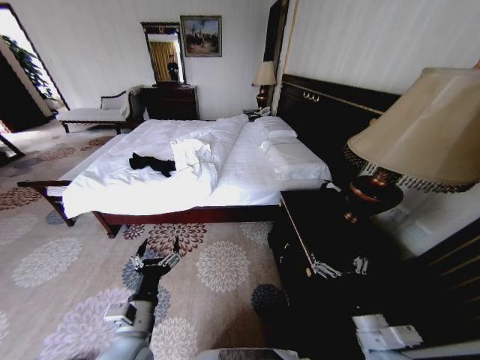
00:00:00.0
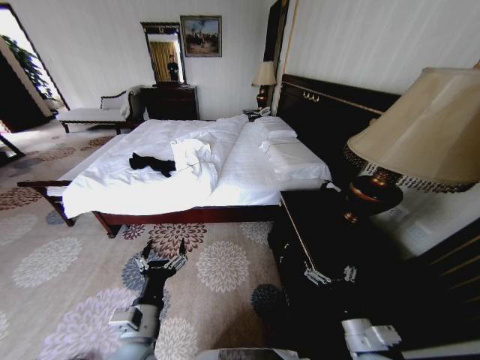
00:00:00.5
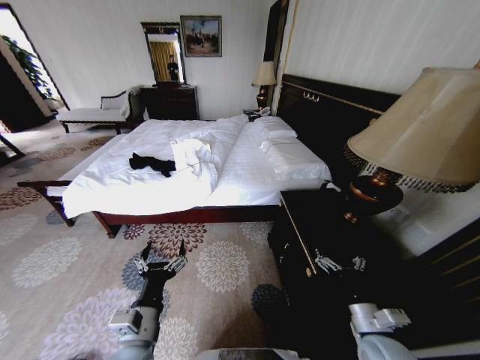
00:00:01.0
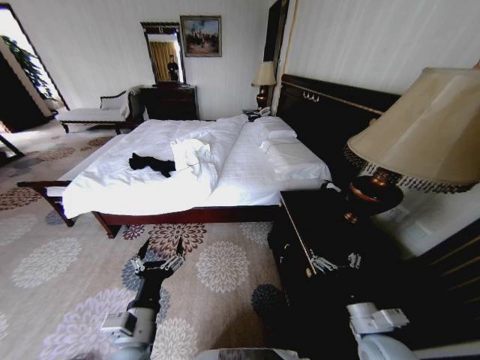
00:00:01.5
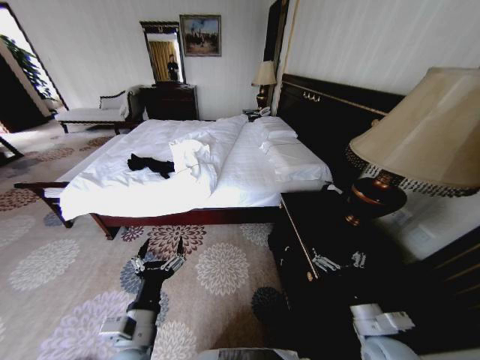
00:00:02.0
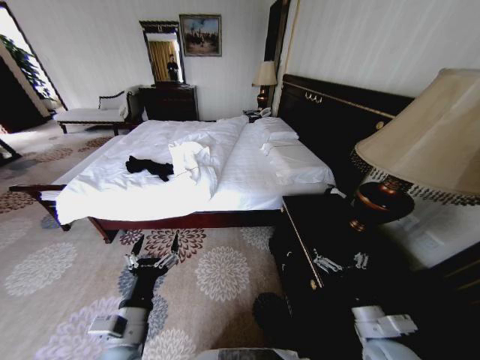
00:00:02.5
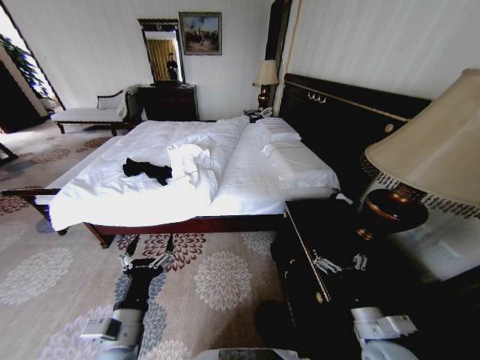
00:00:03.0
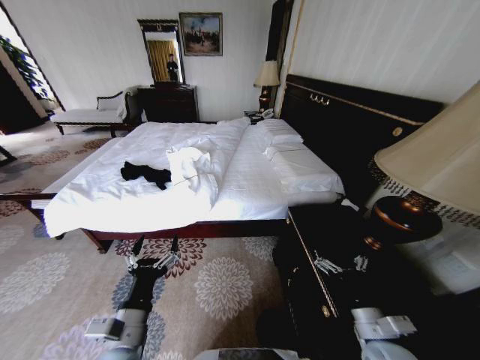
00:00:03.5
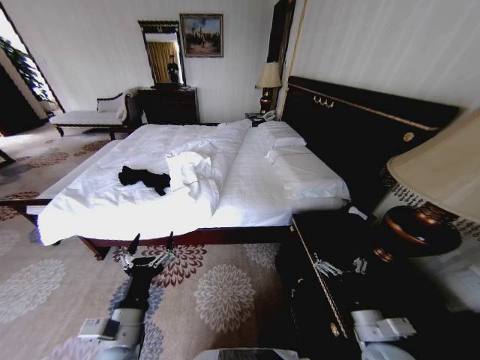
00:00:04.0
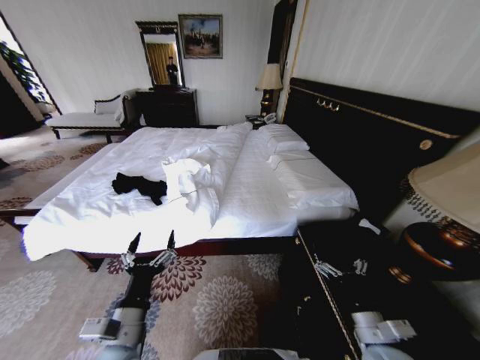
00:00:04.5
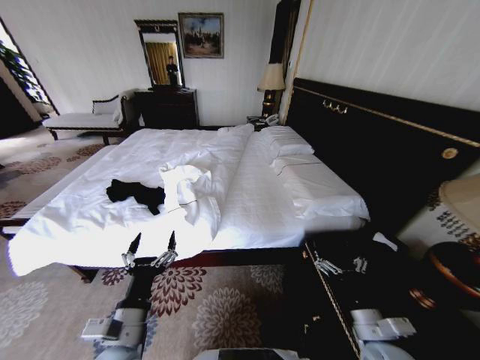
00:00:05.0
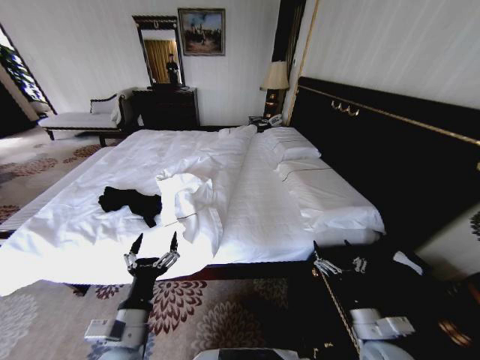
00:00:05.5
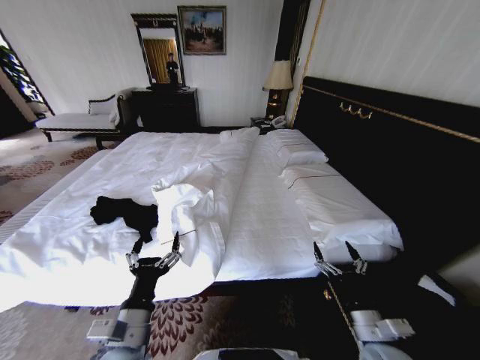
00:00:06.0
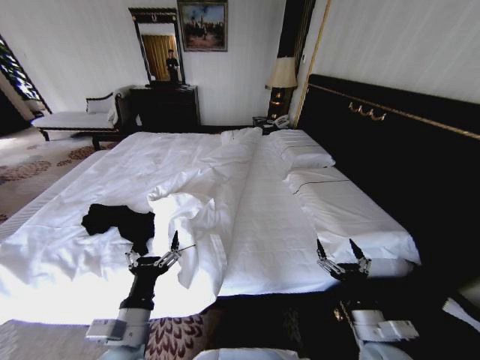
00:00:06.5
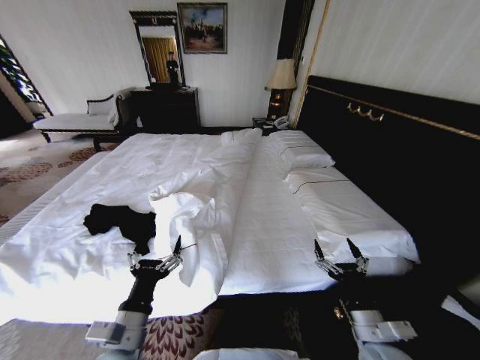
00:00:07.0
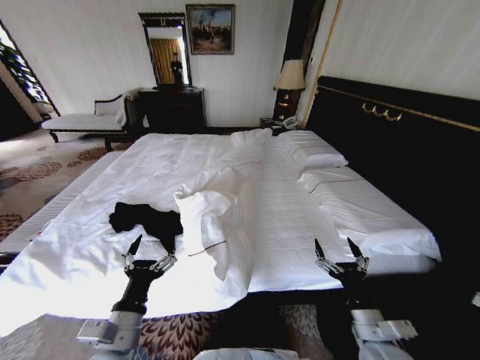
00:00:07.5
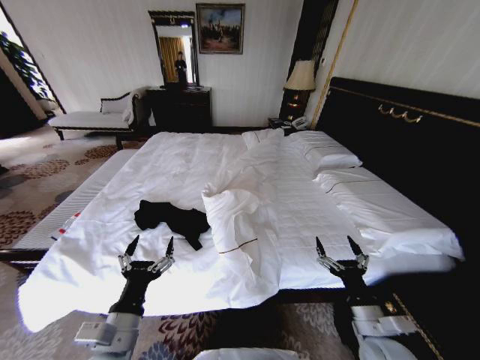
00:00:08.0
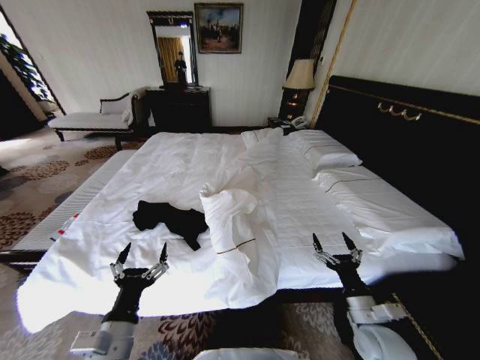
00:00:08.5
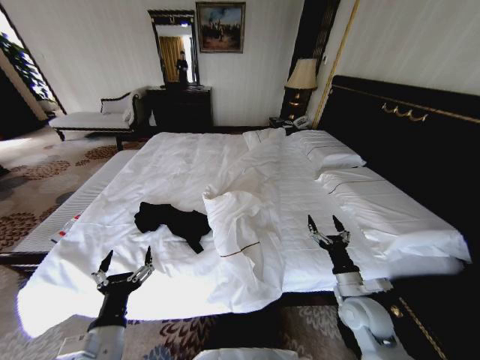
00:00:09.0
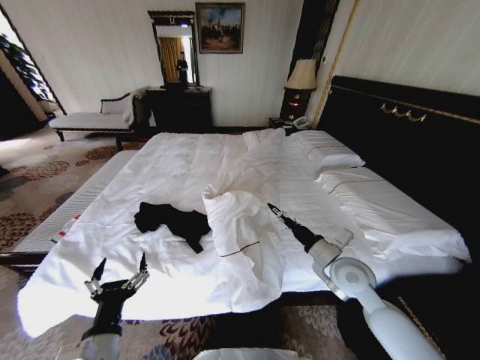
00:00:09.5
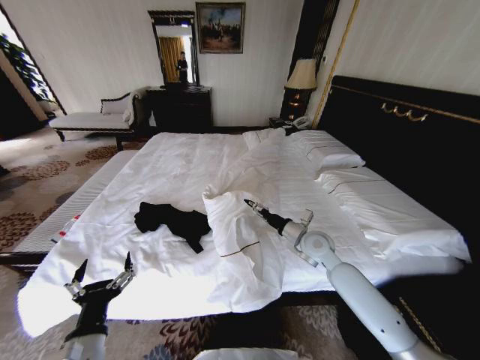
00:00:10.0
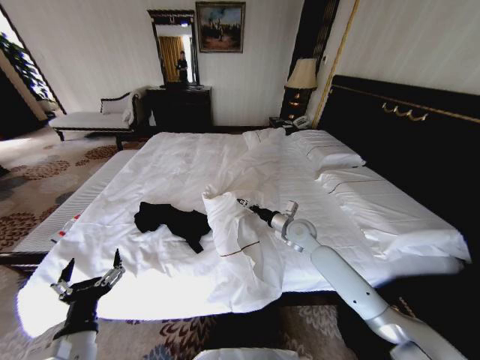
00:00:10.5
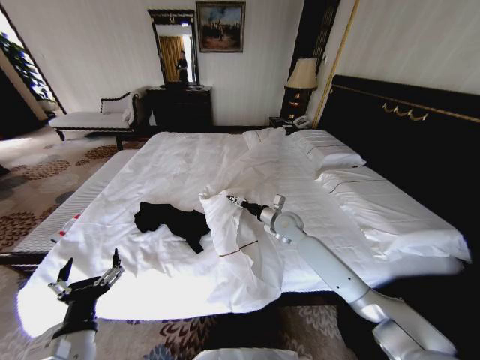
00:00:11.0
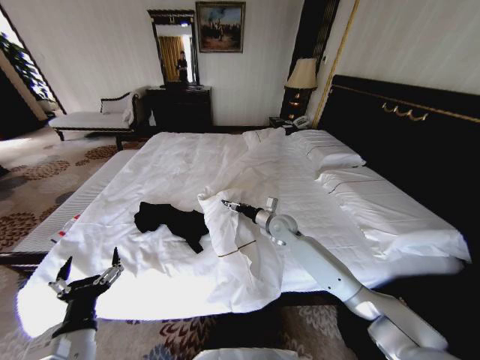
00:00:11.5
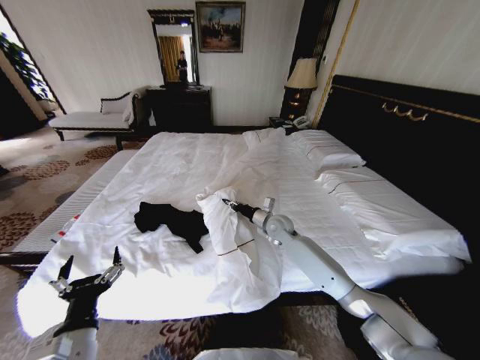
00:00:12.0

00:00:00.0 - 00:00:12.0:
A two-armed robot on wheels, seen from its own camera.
Task of the whole recording: Fold the clothes on the bed.
00:00:08.0 - 00:00:10.0: The right gripper travels forward by about 25 cm.
00:00:10.0 - 00:00:12.0: The right gripper goes about 10 cm forward and to the left, and closes.

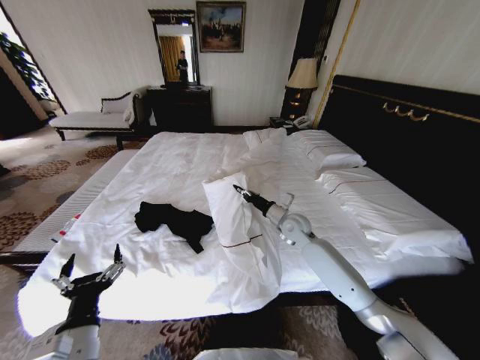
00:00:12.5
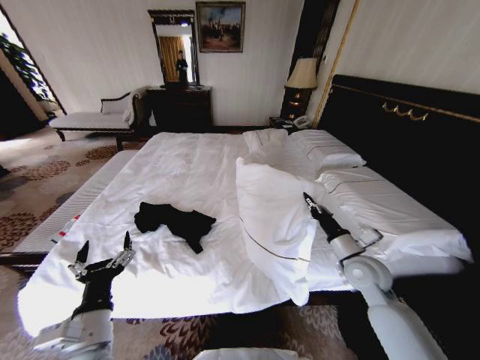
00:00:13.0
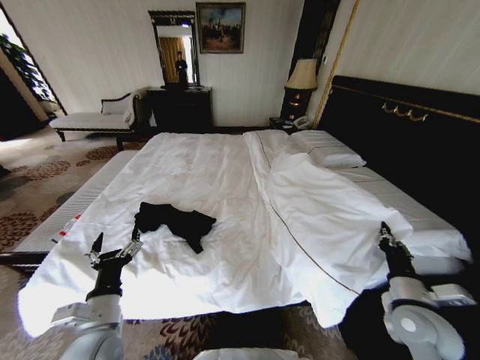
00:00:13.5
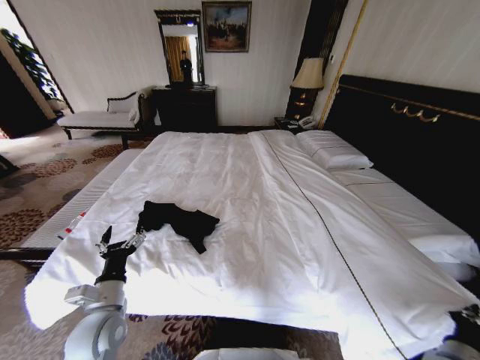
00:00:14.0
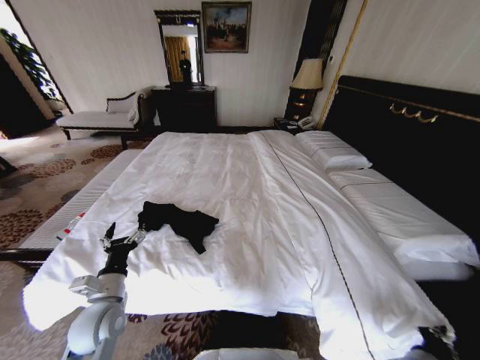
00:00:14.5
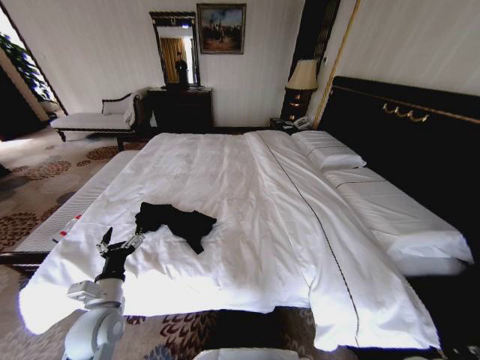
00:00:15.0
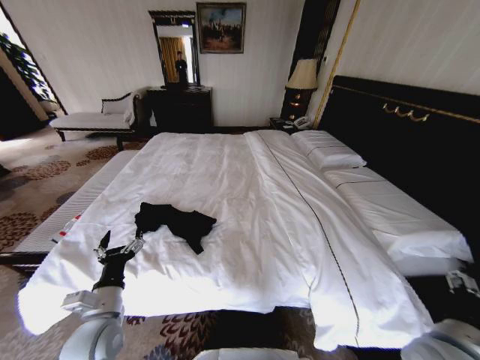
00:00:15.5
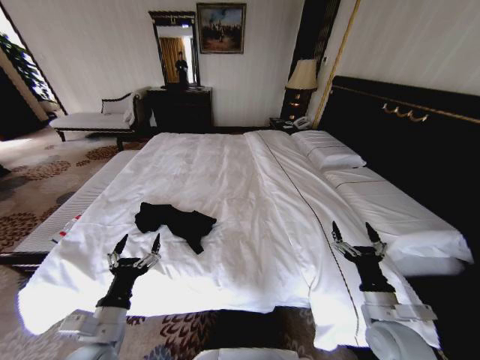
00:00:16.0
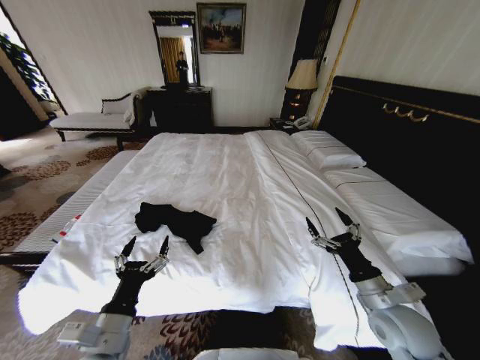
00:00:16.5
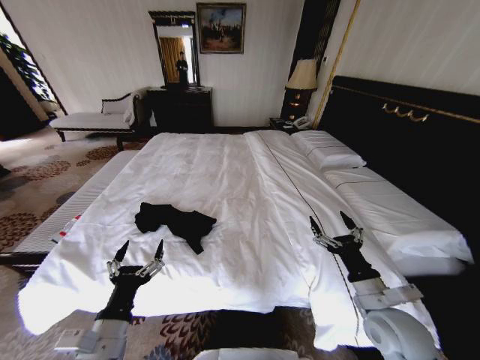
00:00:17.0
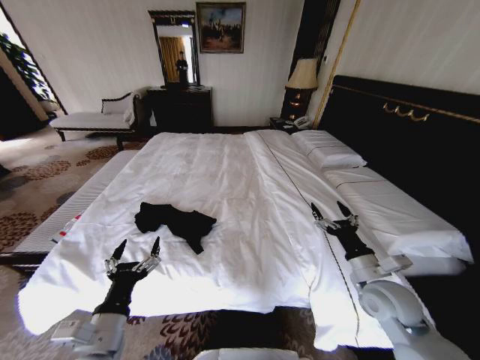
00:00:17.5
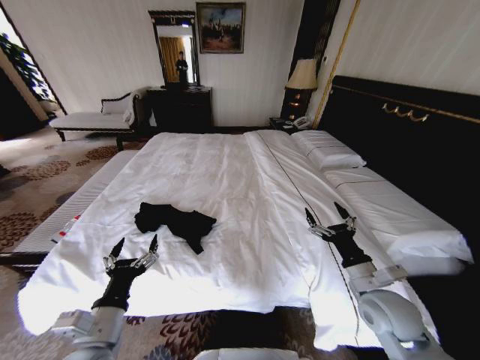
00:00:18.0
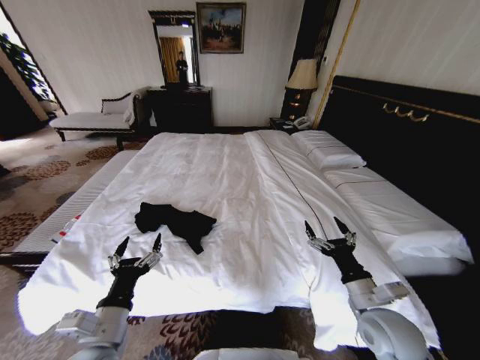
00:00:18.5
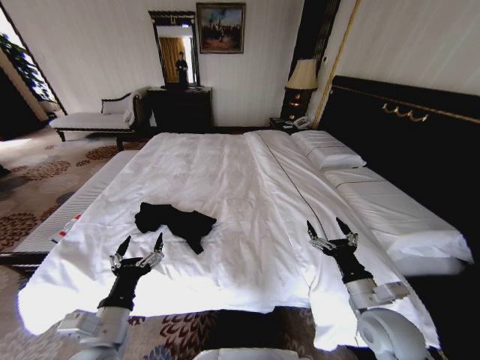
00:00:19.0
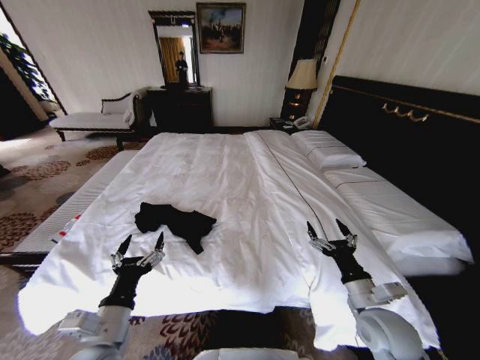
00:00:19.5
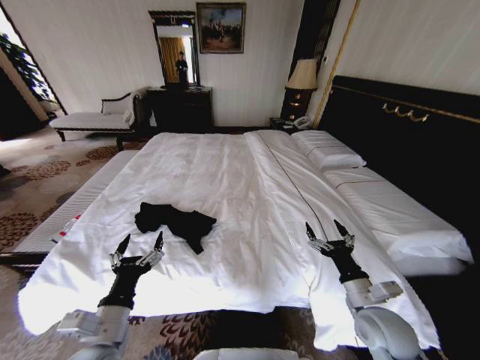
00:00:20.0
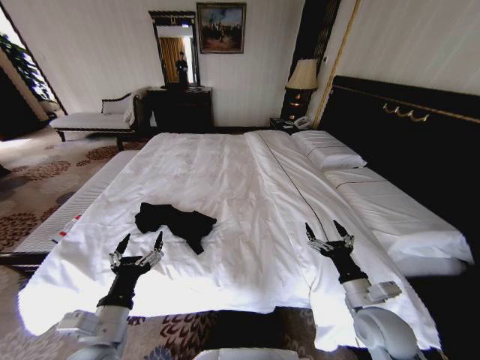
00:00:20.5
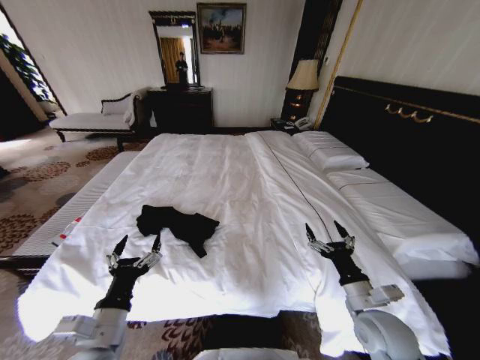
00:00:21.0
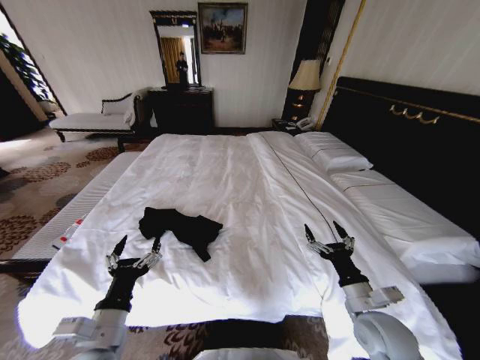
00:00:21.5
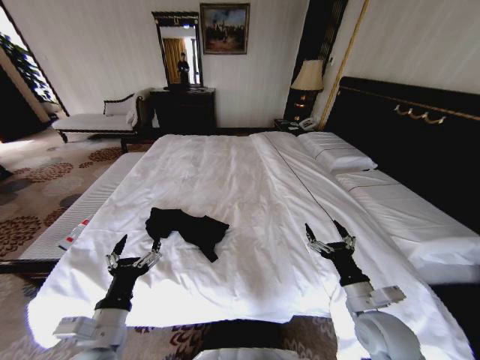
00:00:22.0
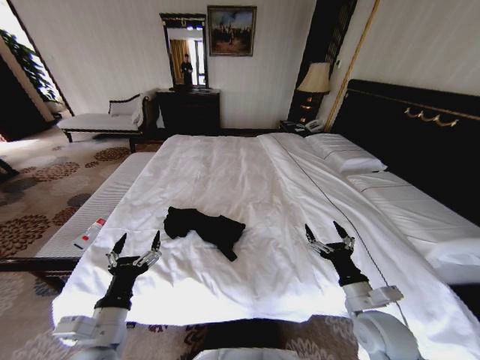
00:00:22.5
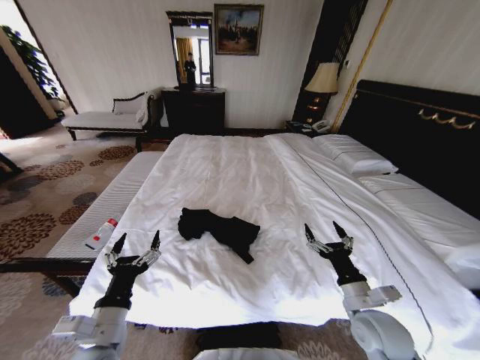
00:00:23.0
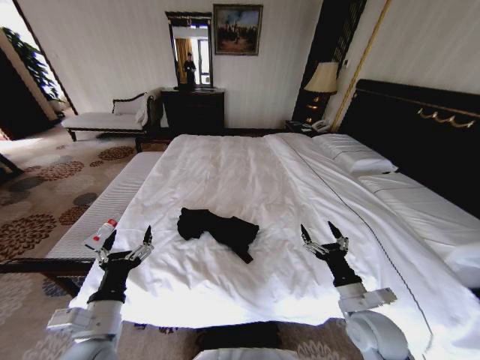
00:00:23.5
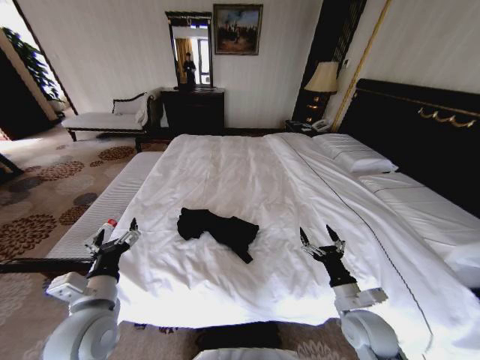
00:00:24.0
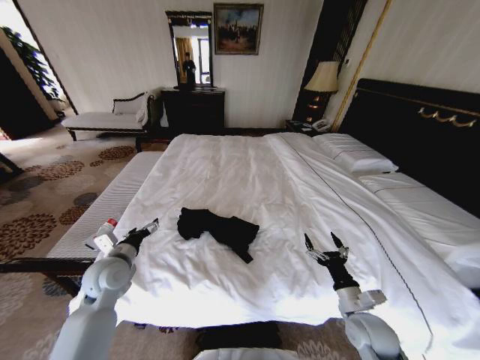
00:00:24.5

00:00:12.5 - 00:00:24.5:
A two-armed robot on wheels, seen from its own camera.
Task of the whole recording: Fold the clothes on the bed.
00:00:12.5 - 00:00:14.5: The left gripper goes some 10 cm forward; the right gripper is displaced backward, to the right and downward by about 40 cm.
00:00:14.5 - 00:00:16.5: The right gripper moves upward, forward and to the left, about 20 cm, and opens. Meanwhile the left gripper heads backward and to the right, covering some 10 cm.
00:00:18.5 - 00:00:20.5: The grippers make only small movements.
00:00:22.5 - 00:00:24.5: The right gripper travels downward by approximately 5 cm; the left gripper moves forward, roughly 20 cm.

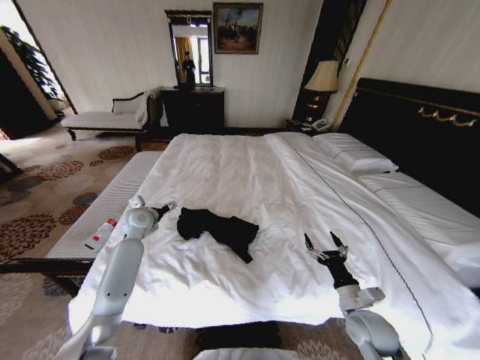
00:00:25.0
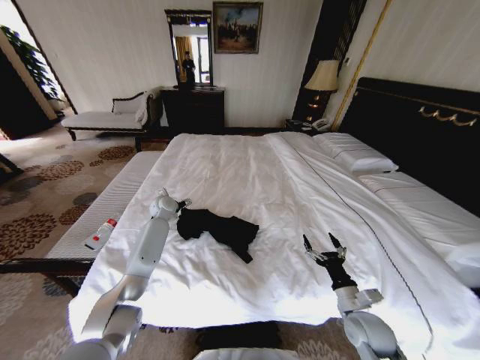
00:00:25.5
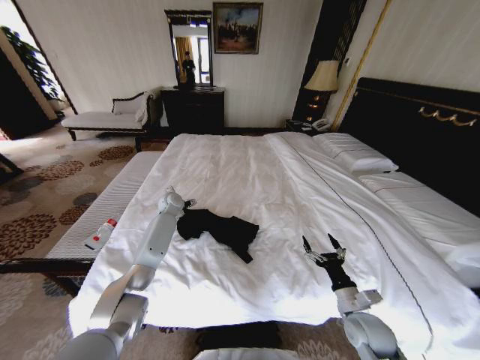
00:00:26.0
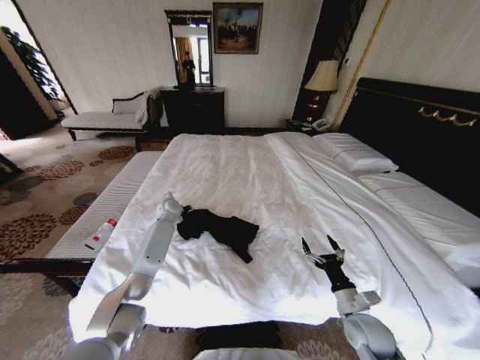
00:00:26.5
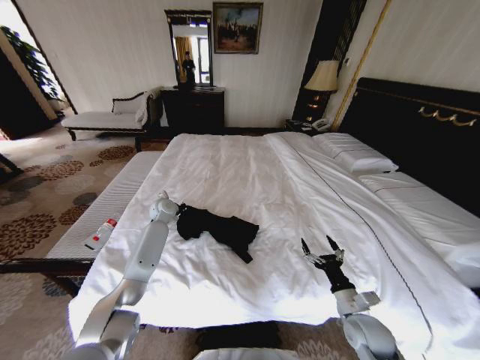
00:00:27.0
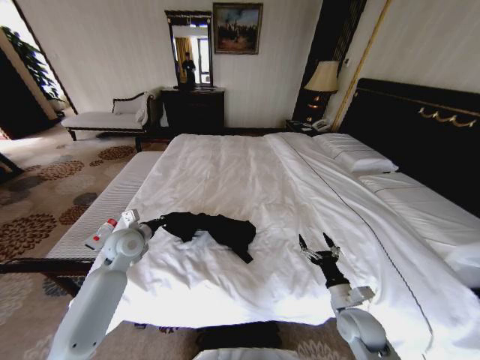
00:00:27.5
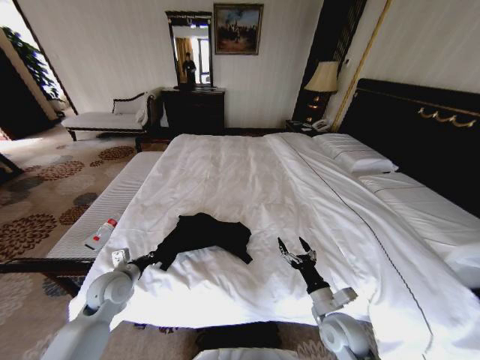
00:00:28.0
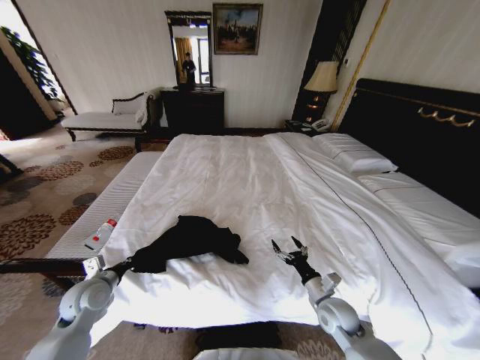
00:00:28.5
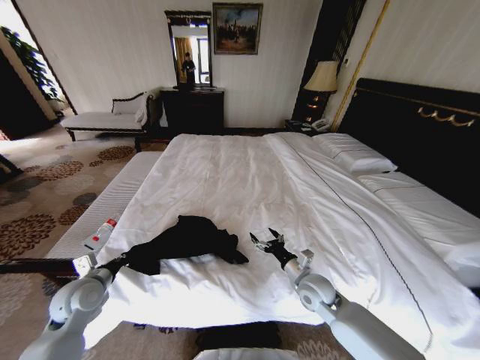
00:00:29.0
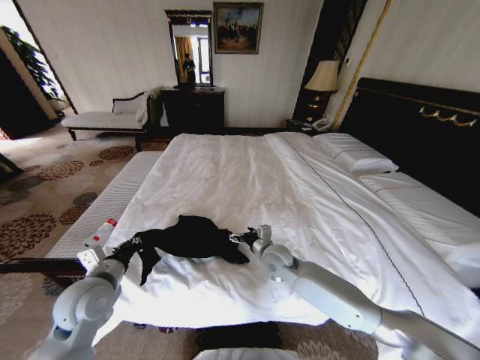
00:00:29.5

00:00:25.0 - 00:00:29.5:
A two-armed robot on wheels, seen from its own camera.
Task of the whole recording: Fold the clothes on the bed.
00:00:25.0 - 00:00:27.0: The left gripper moves forward, approximately 10 cm, and closes.
00:00:27.0 - 00:00:29.5: The right gripper goes roughly 25 cm to the left and forward, while the left gripper travels backward by some 30 cm.
